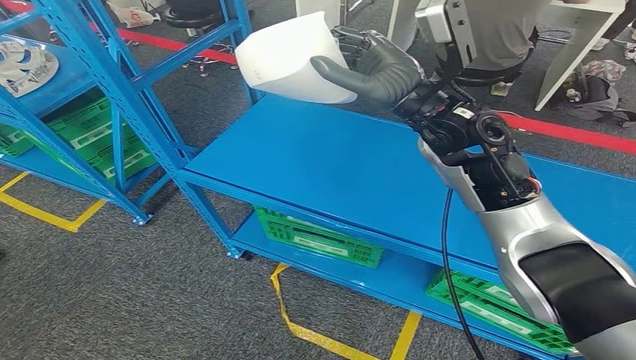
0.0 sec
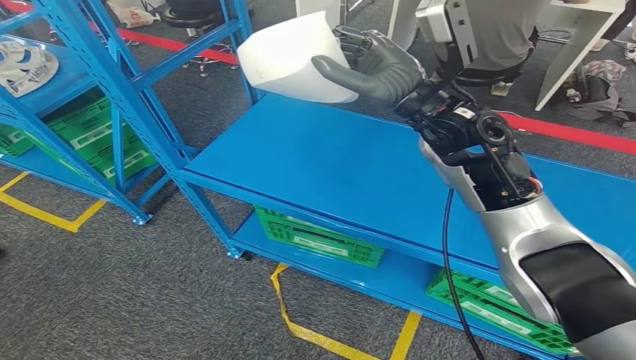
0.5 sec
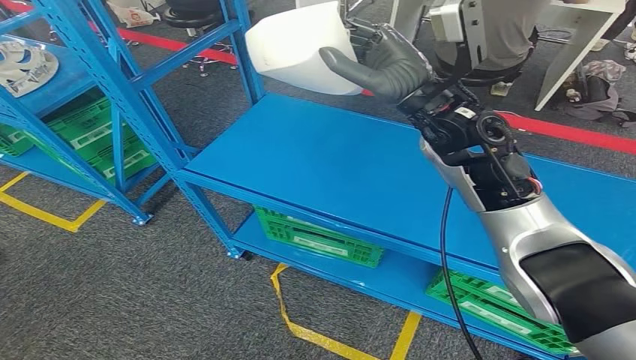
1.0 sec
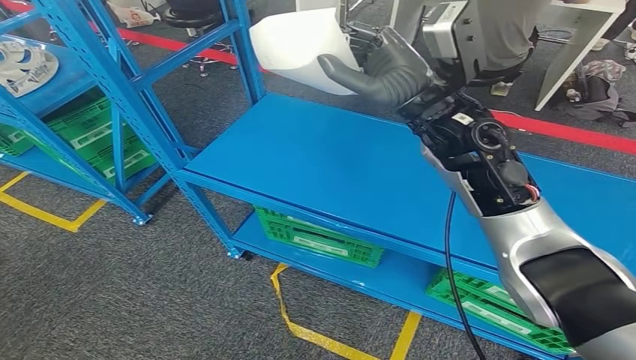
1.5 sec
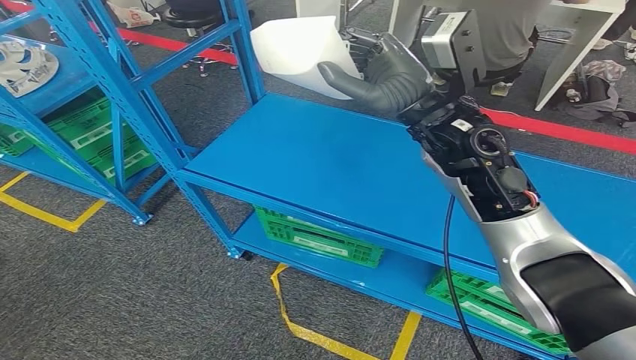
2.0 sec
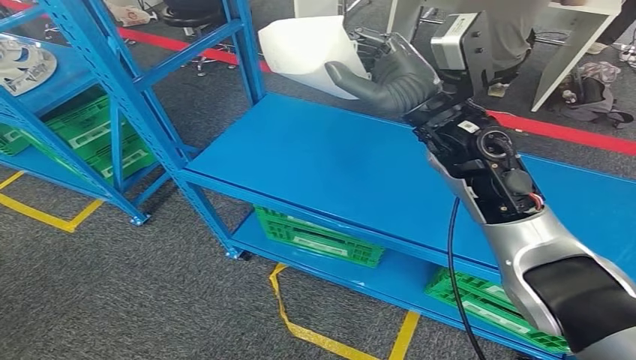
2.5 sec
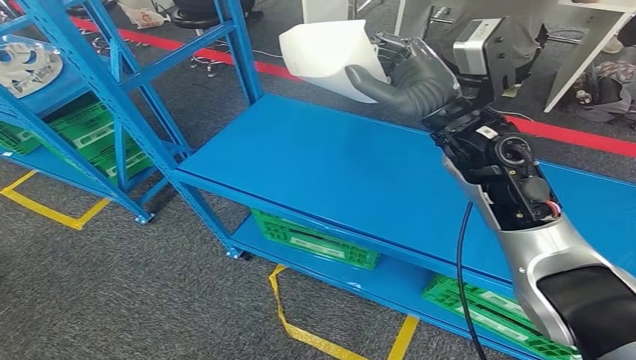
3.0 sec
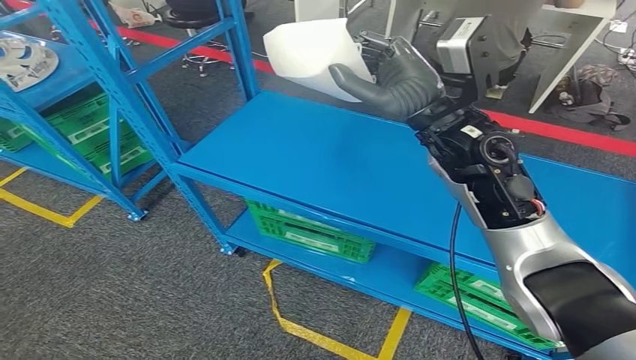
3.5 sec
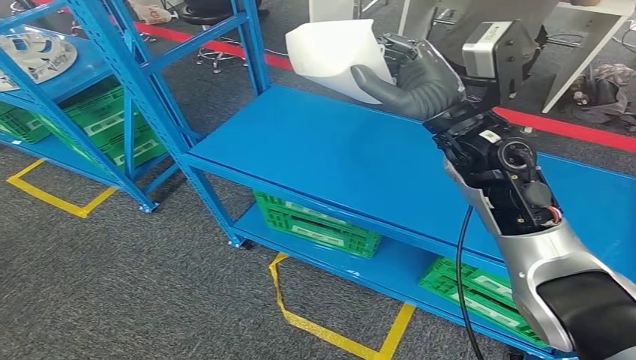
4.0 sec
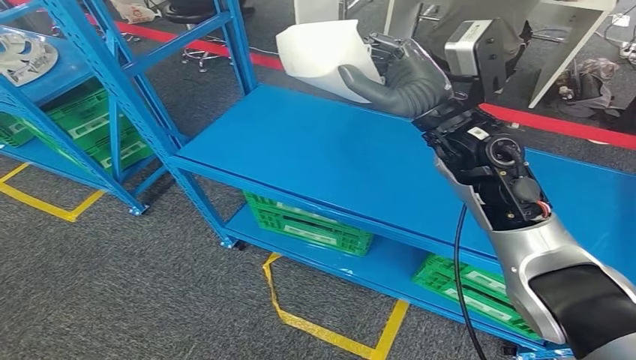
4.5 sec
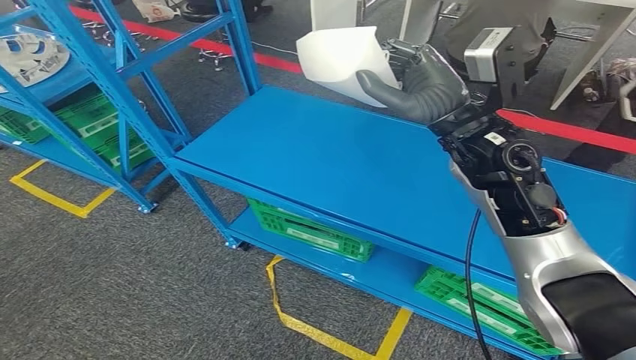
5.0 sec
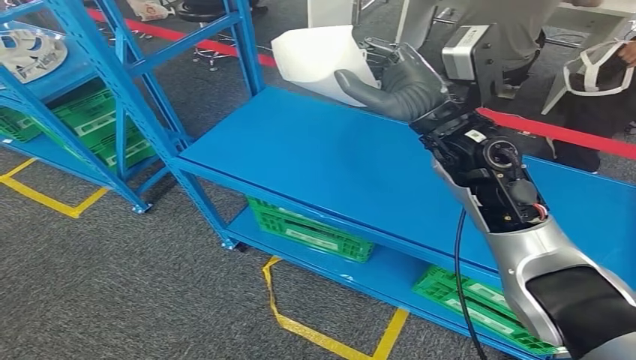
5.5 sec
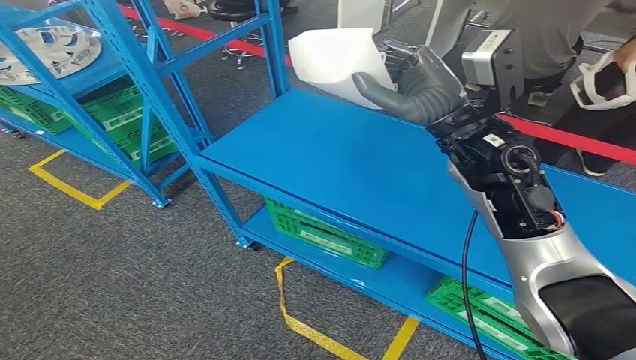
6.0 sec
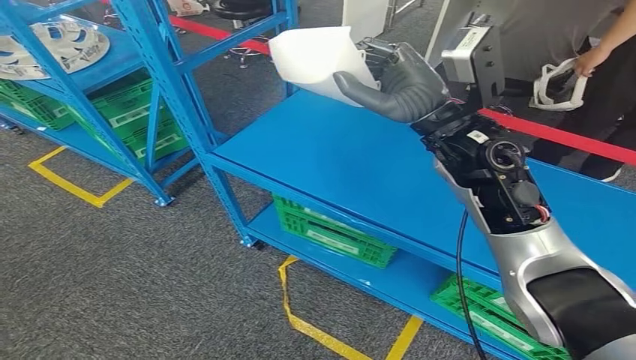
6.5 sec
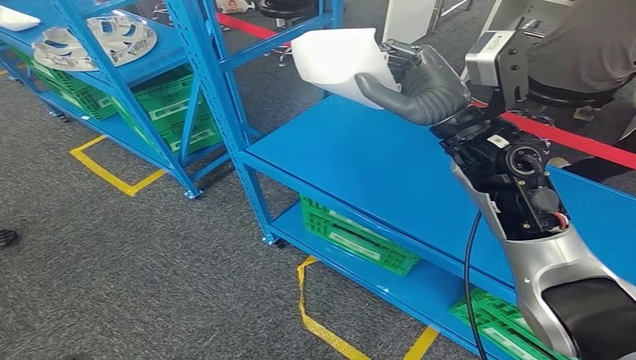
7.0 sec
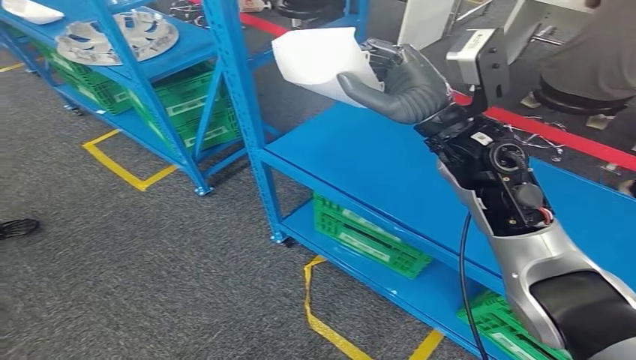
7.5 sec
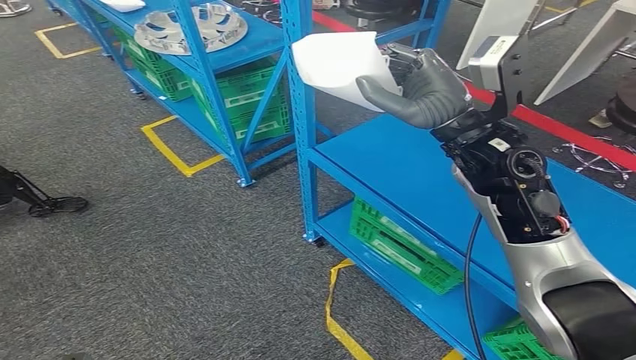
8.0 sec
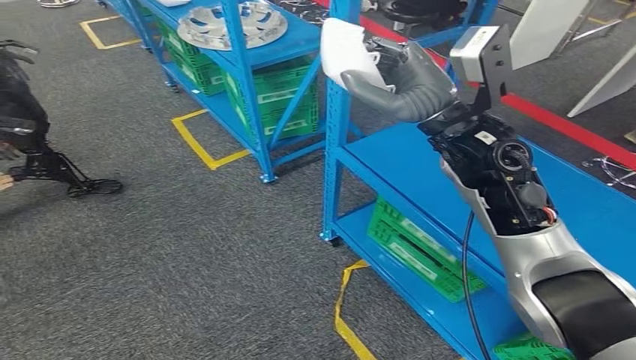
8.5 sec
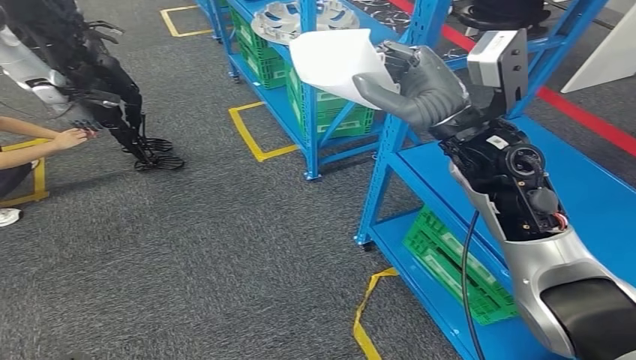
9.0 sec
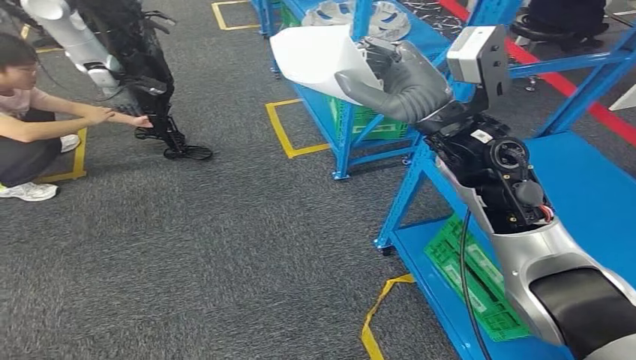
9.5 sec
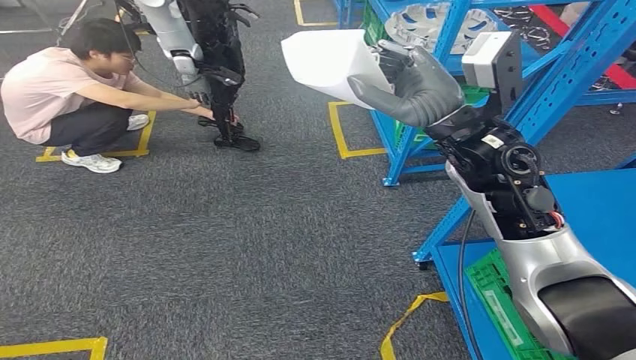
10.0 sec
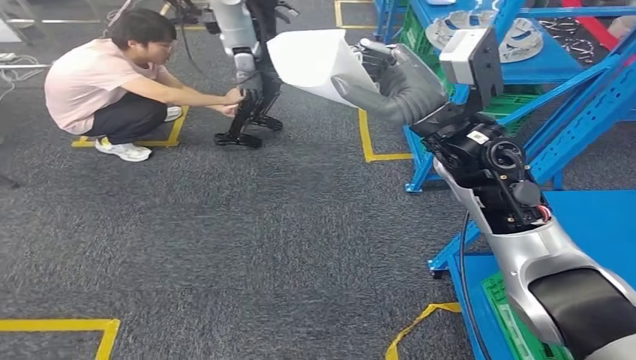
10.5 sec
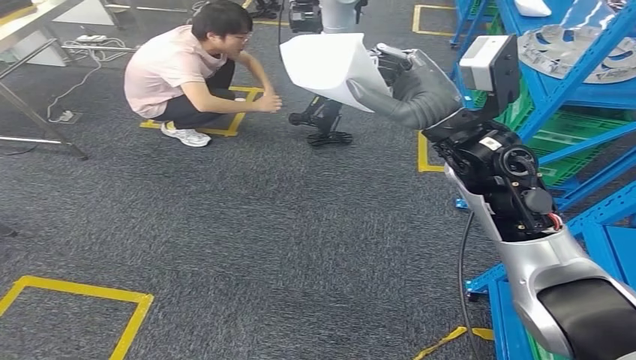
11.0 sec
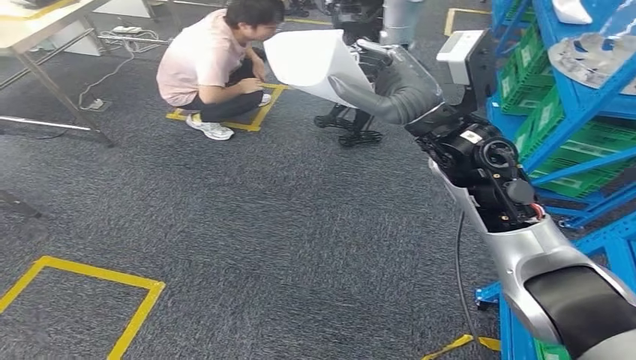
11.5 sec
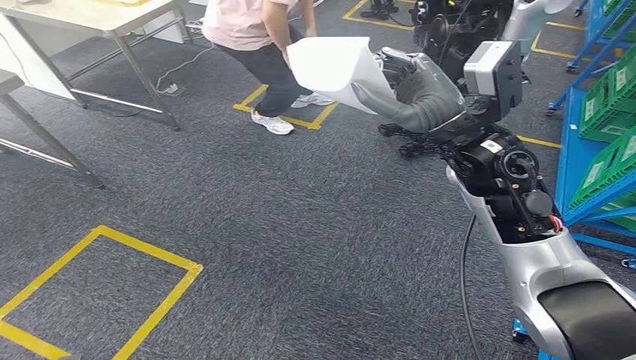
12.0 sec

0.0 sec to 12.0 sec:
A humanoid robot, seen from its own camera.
0.0 sec to 2.0 sec: The hands stay close to where they were, moving slightly.

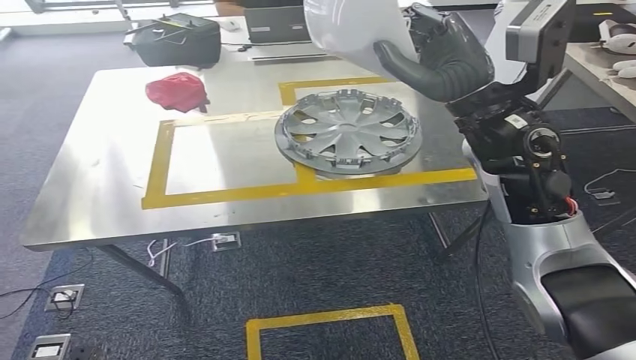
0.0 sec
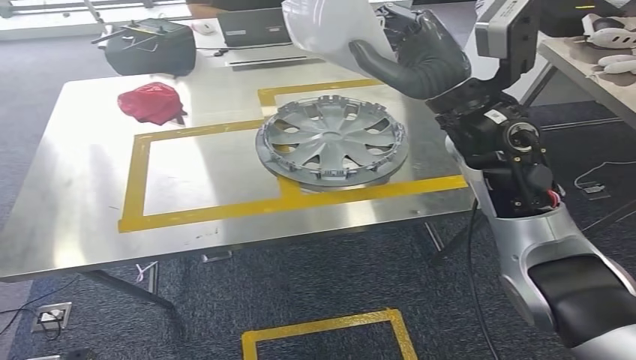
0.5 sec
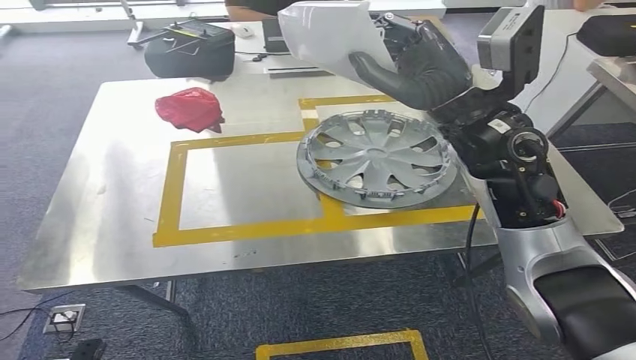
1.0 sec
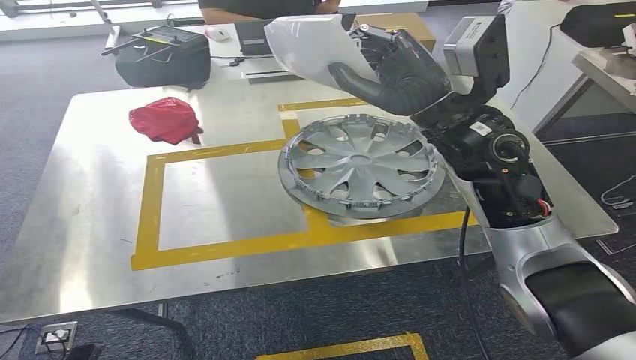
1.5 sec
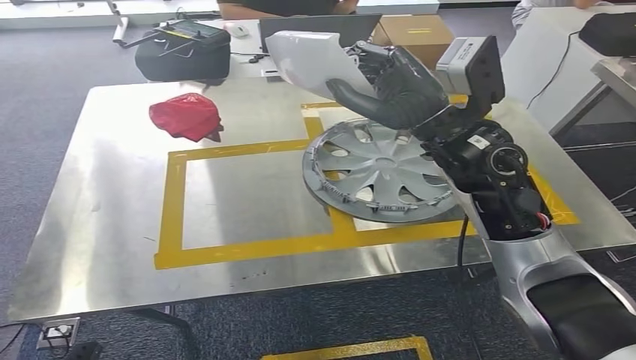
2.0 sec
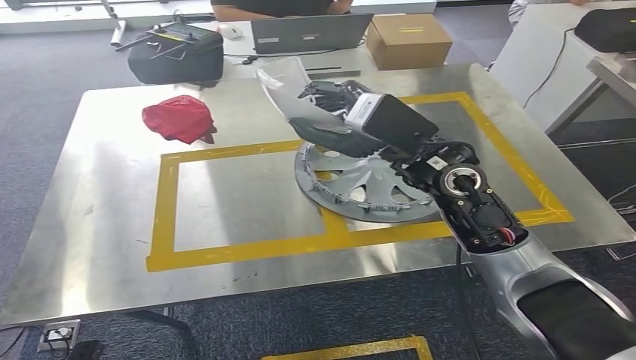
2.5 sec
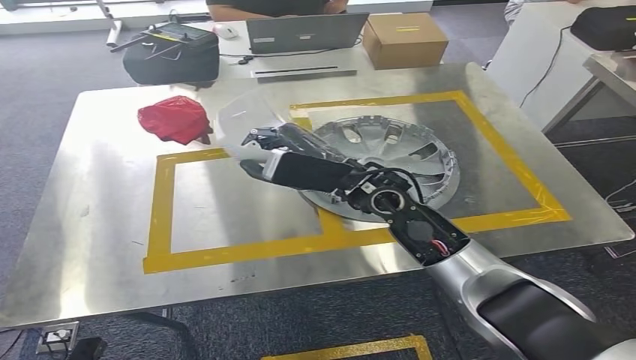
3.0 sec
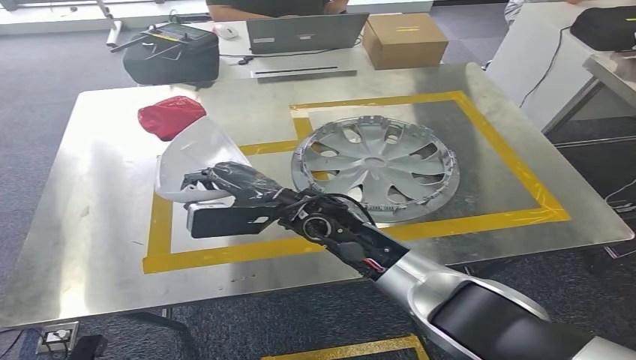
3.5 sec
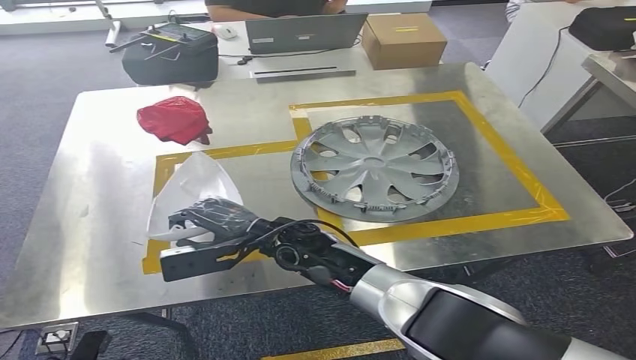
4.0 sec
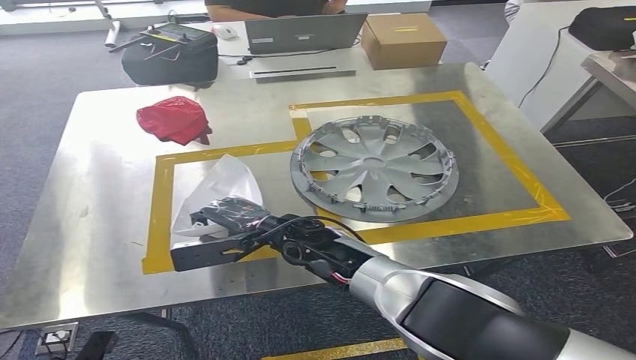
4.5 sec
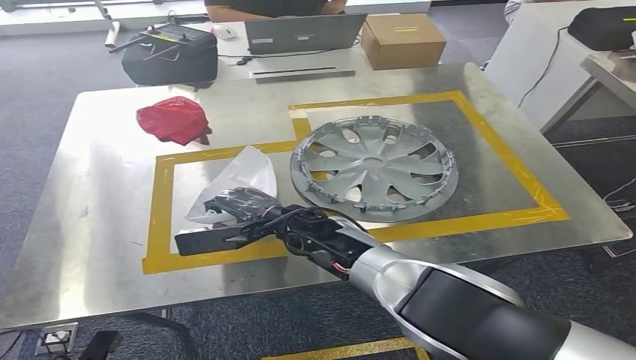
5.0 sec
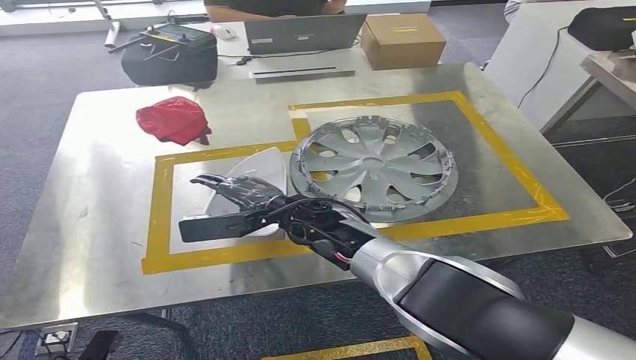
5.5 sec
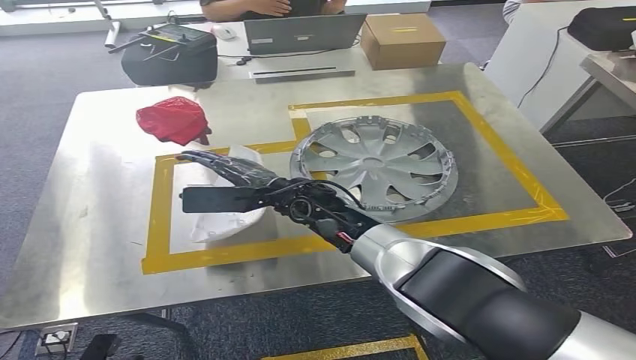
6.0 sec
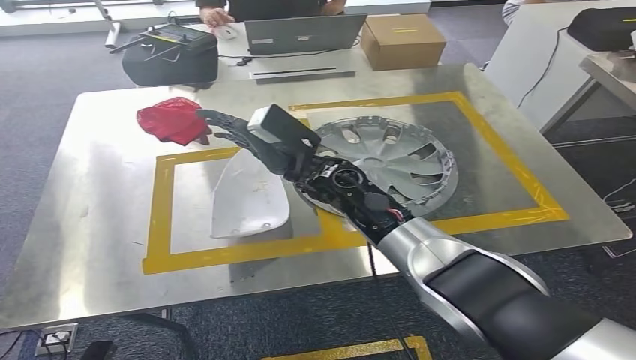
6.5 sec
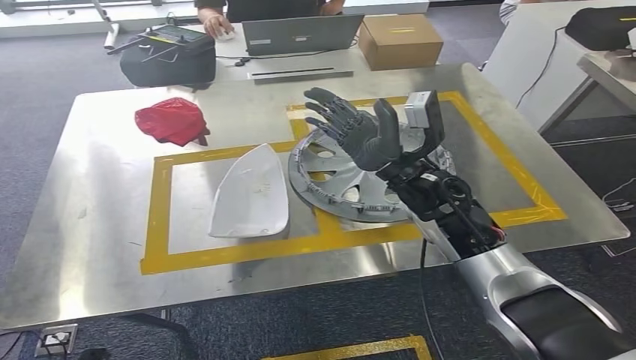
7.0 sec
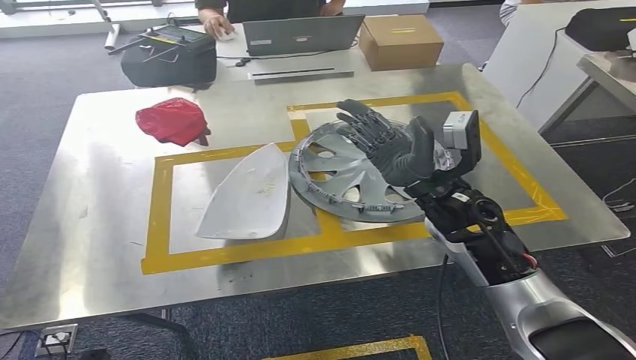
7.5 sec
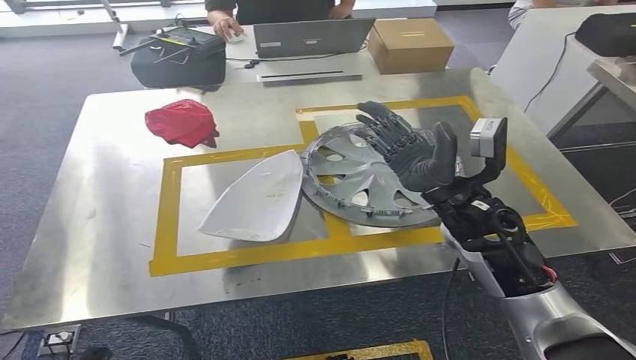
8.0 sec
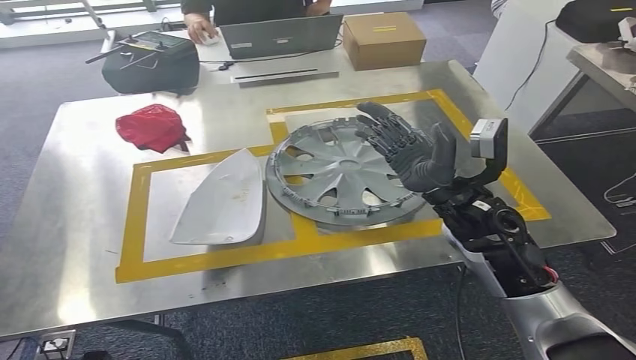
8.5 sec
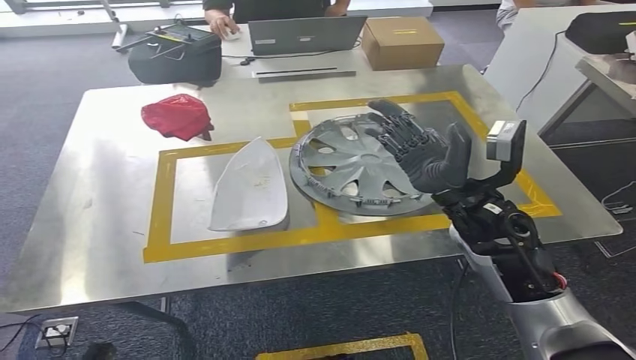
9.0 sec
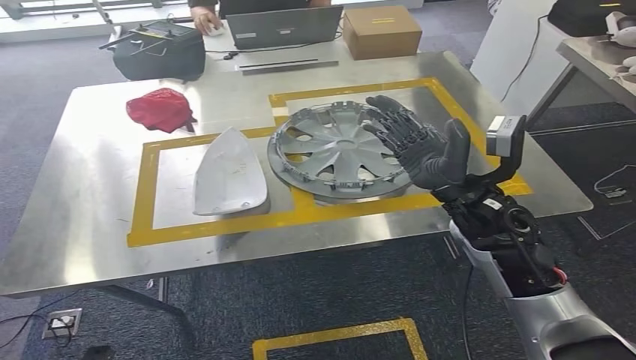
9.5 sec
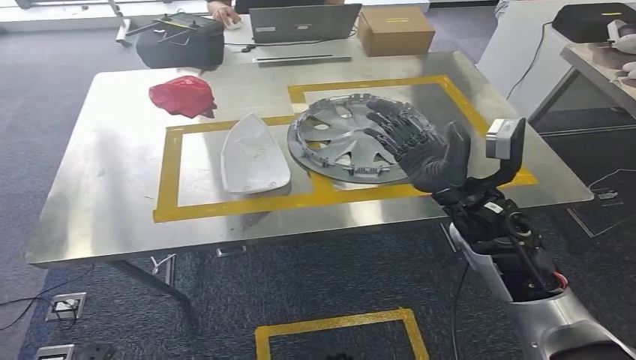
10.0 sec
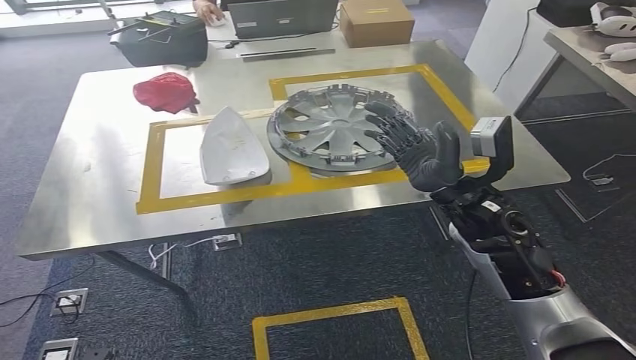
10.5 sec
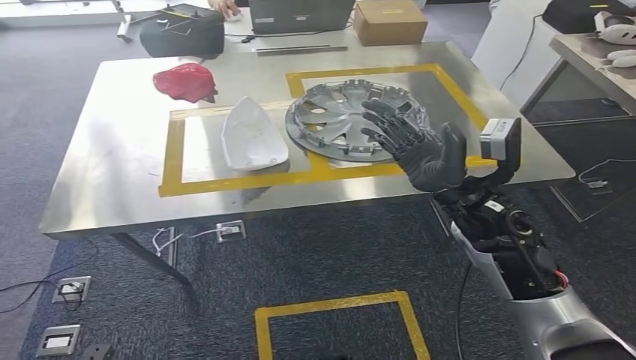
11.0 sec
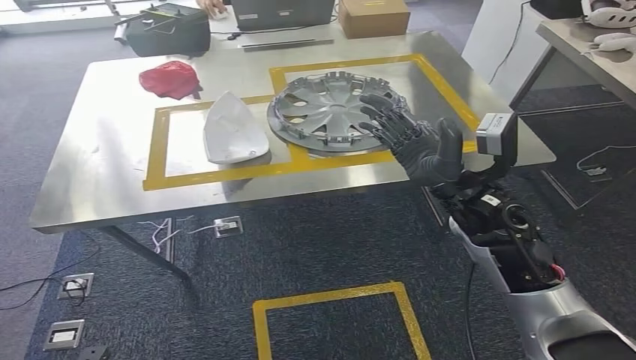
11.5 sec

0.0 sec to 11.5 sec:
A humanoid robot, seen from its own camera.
Step, 1.5 sec to 8.0 sec: Insert the small component into the corresponding slot on the workbench.
4.0 sec to 6.0 sec: The right hand travels forward by approximately 5 cm.
